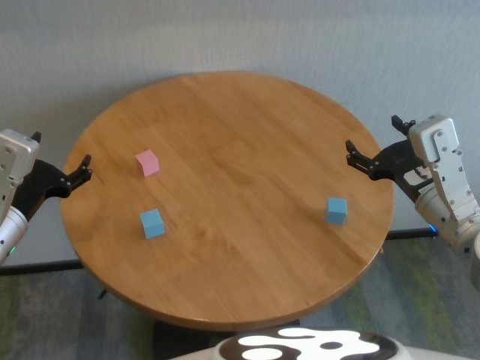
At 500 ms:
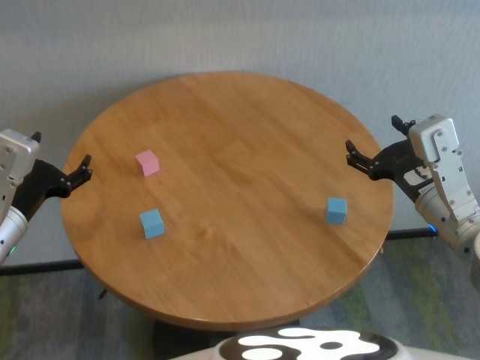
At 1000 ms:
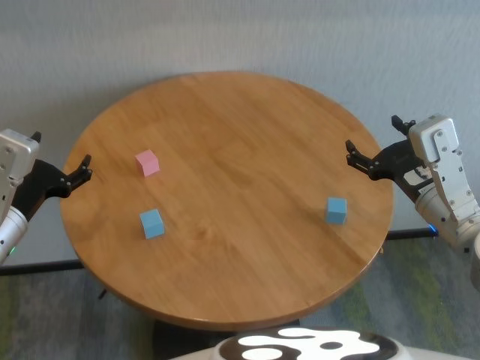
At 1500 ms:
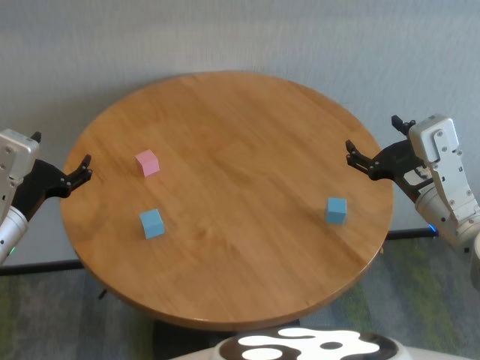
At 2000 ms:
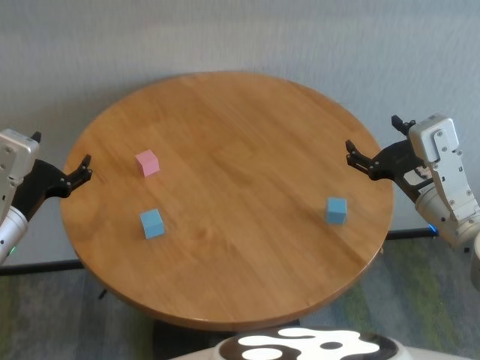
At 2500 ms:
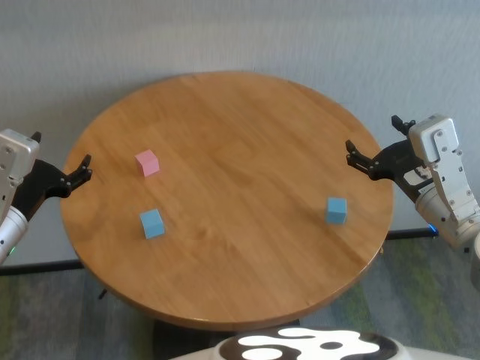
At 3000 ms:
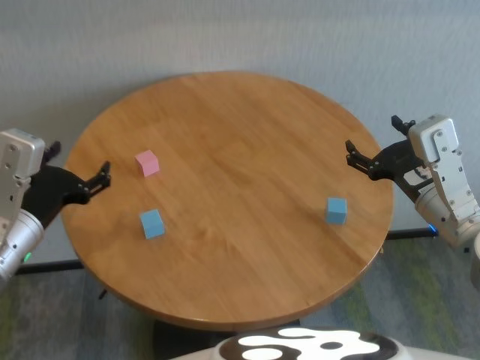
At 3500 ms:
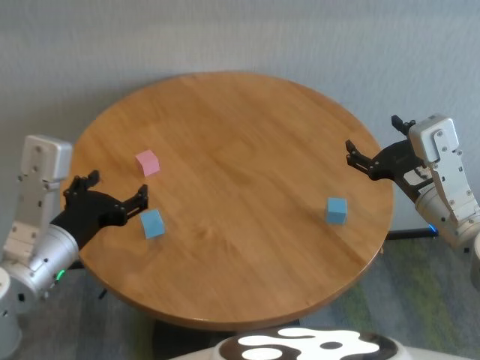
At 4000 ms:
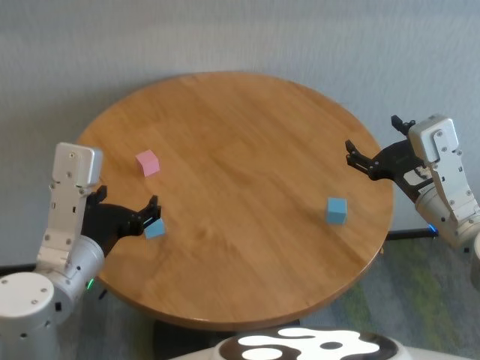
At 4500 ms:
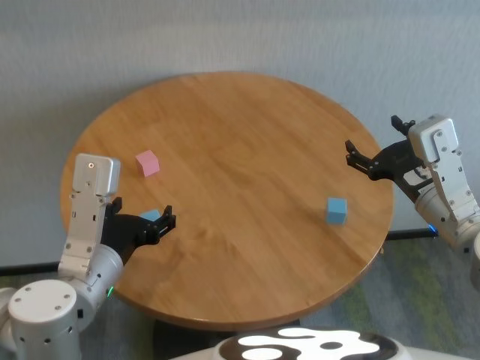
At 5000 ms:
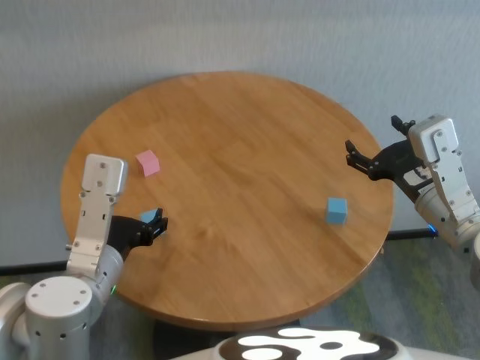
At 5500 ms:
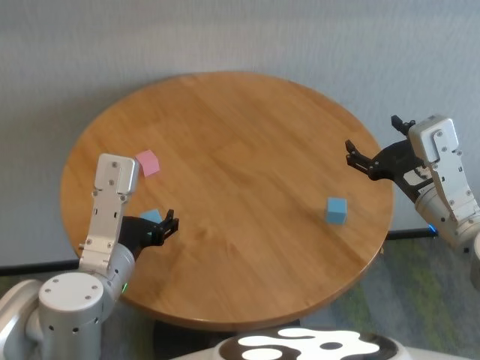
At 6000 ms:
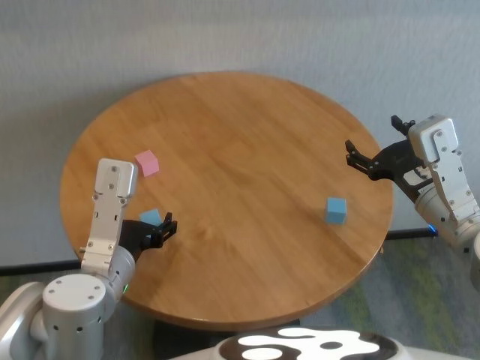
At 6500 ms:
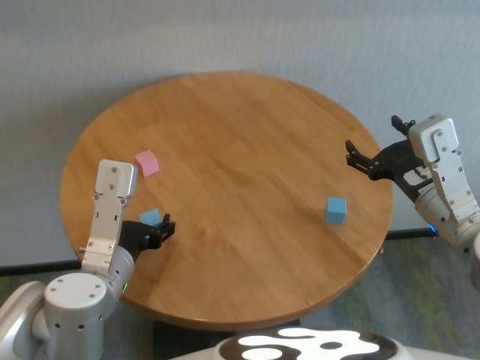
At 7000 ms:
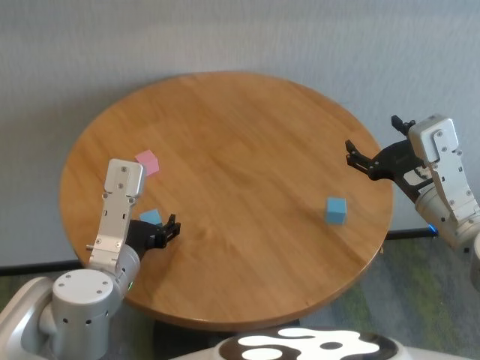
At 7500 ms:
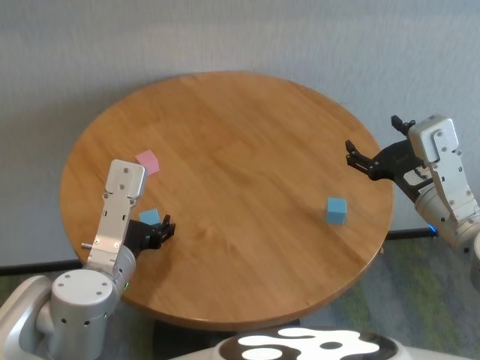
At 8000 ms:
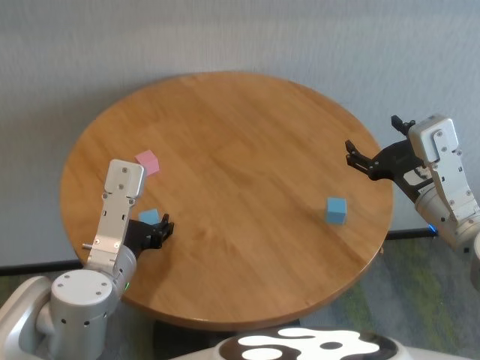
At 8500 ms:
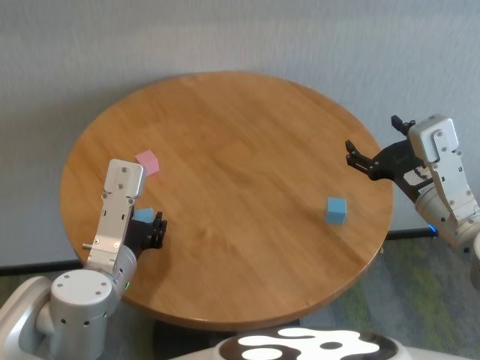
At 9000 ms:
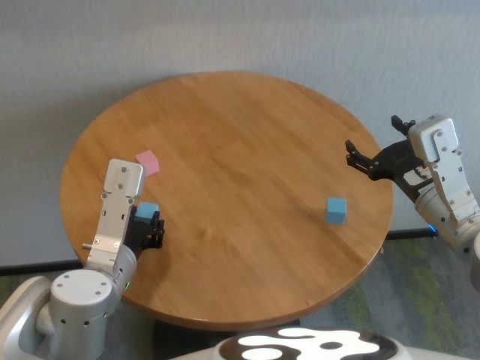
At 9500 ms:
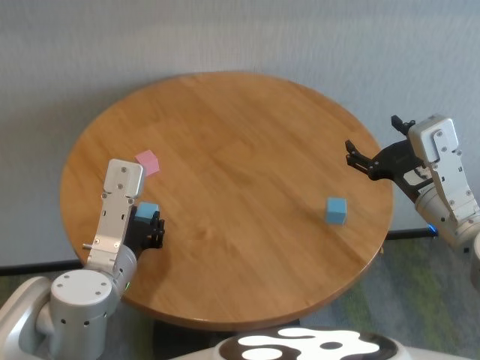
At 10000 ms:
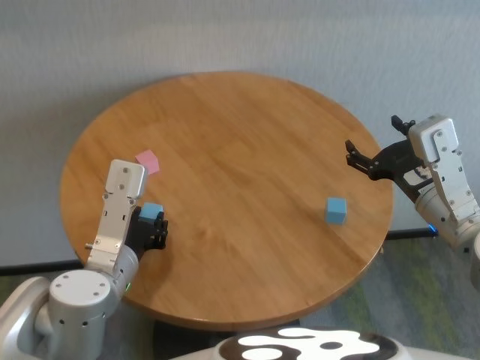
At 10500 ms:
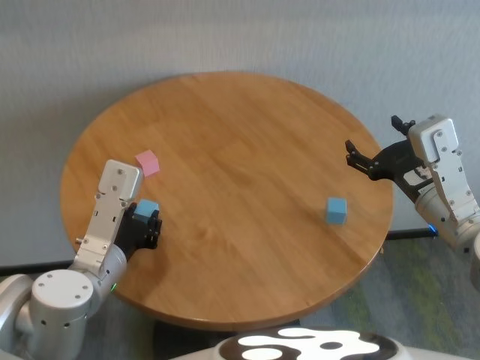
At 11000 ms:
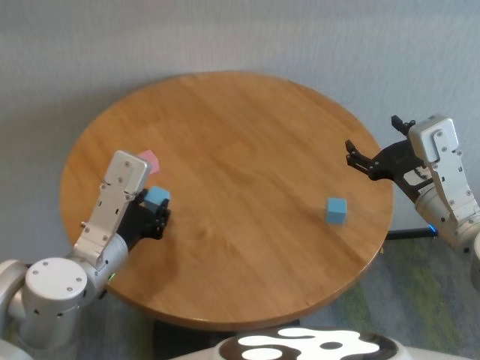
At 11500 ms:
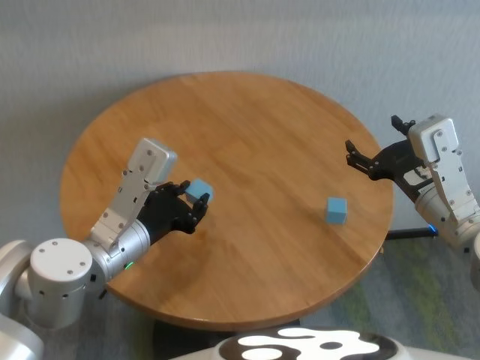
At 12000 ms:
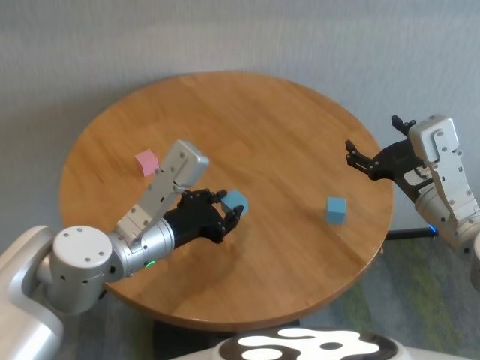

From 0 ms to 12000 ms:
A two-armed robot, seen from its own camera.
Task of the whole recording: stack building blocks on the table.
Step, from 0 ms to 8500 ms: Grasp the blue building block with left gripper.

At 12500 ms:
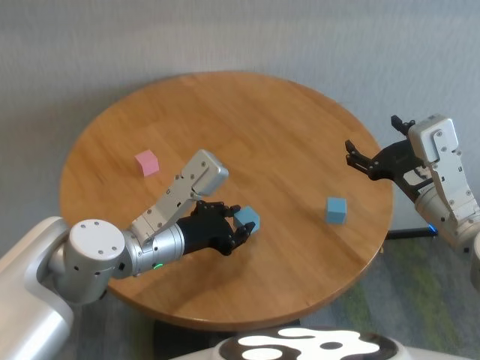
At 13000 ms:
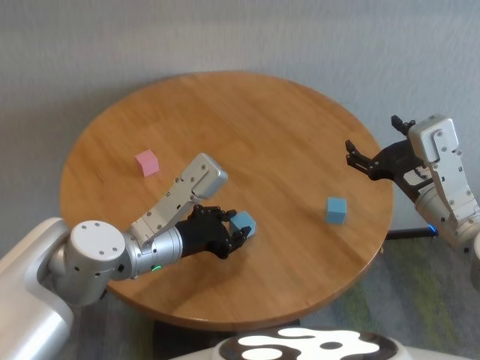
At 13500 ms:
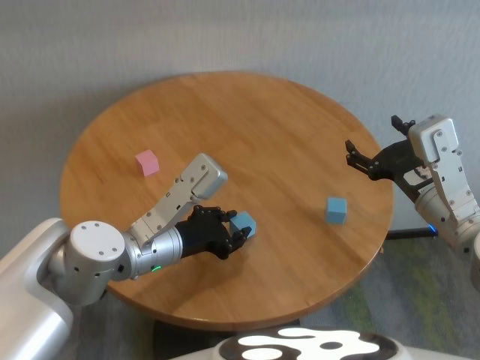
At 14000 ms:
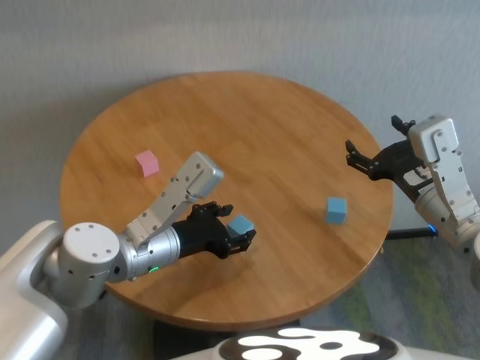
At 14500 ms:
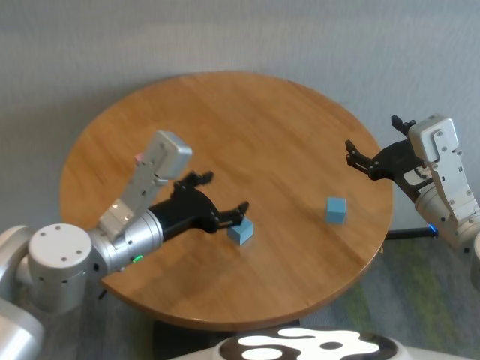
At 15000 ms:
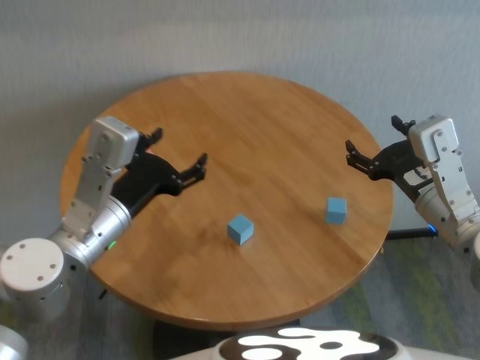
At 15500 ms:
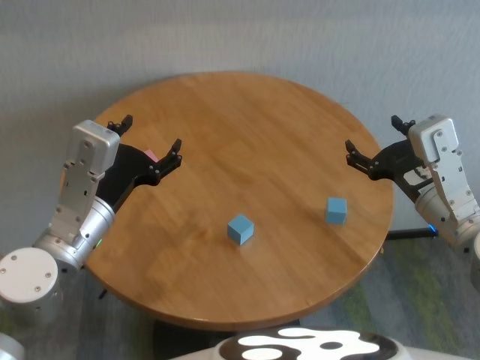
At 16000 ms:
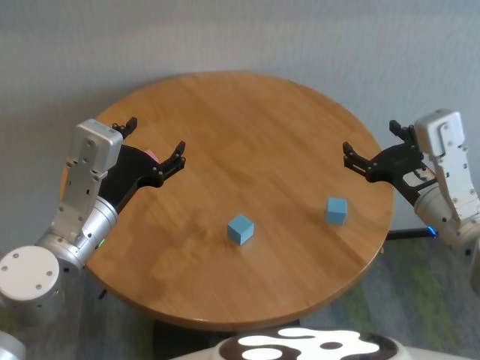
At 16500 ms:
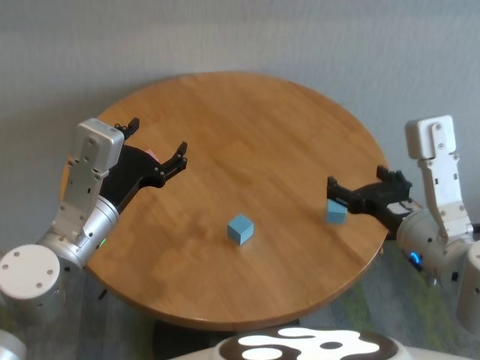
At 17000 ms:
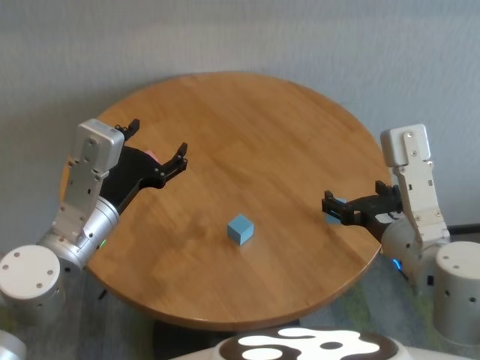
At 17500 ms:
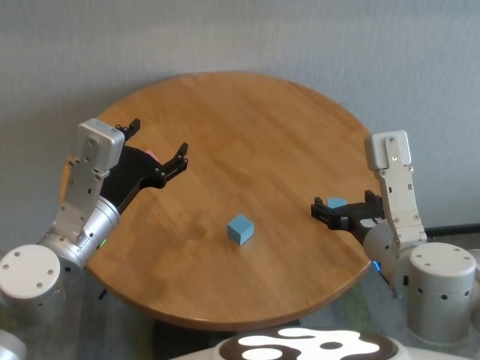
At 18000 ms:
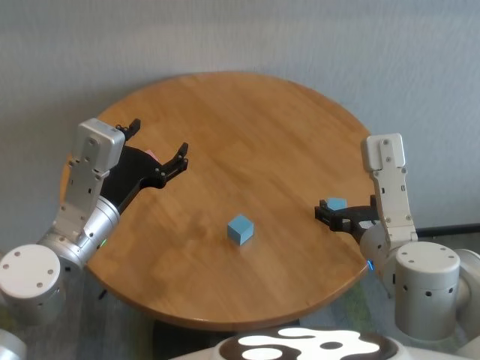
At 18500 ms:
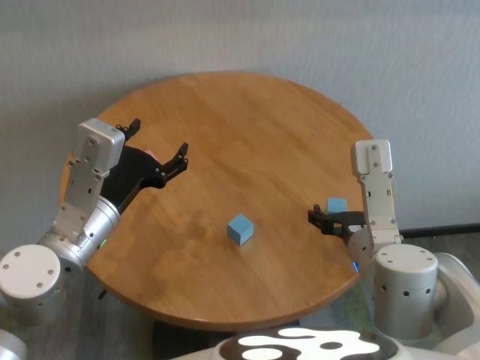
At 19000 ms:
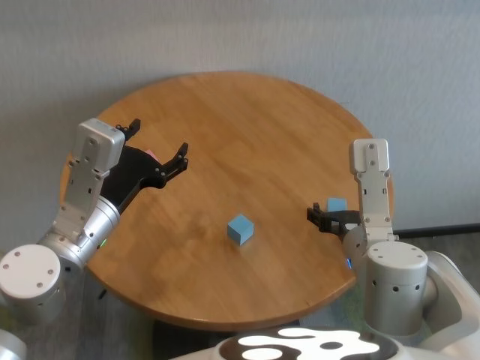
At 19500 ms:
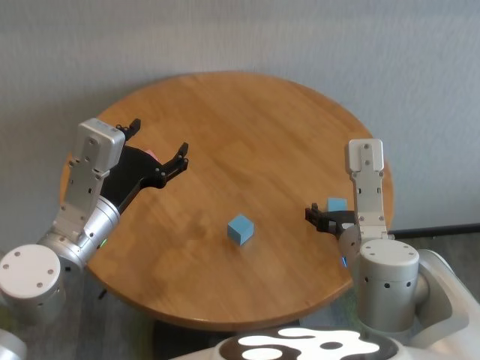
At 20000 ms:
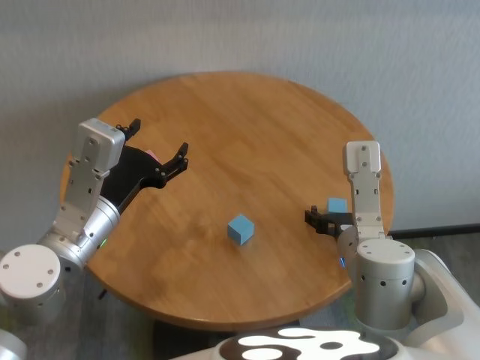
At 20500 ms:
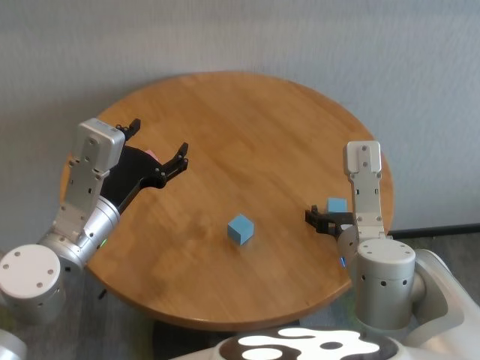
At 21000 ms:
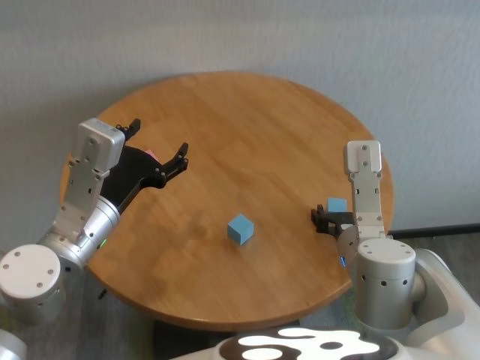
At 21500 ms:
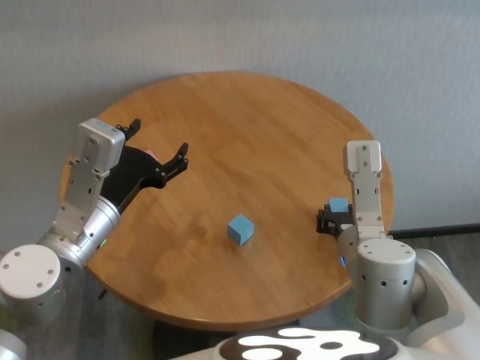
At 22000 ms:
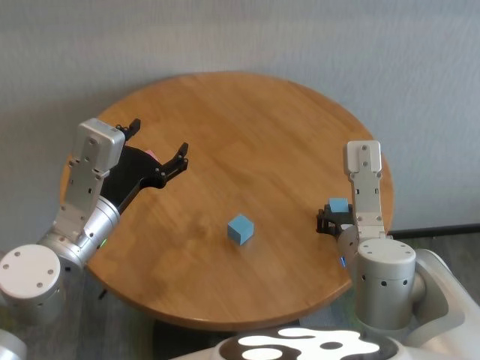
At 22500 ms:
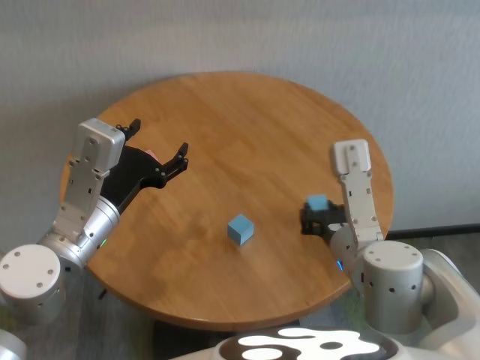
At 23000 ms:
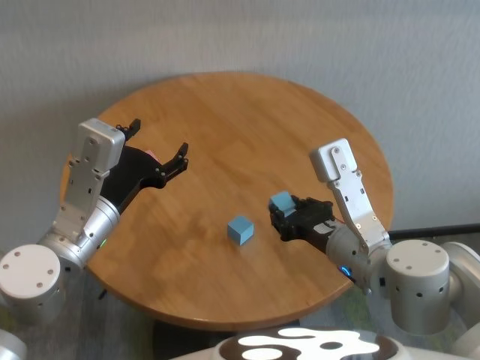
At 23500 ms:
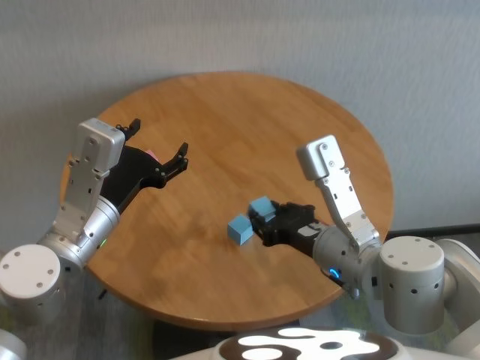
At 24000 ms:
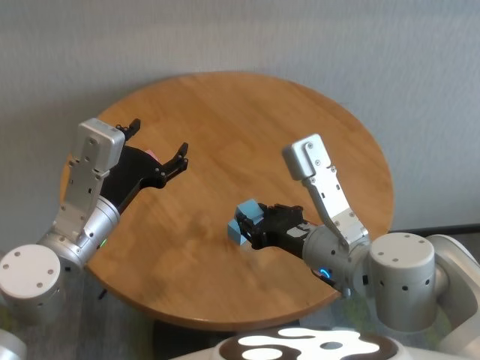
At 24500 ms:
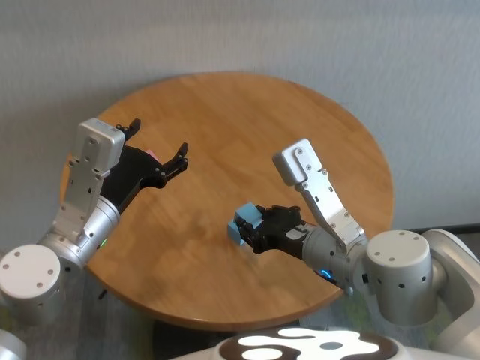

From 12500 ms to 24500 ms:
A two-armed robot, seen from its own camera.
Task of the whole recording: stack building blocks on the table.
Step, from 14000 ms to 21000 ms: Grasp the blue building block with right gripper.

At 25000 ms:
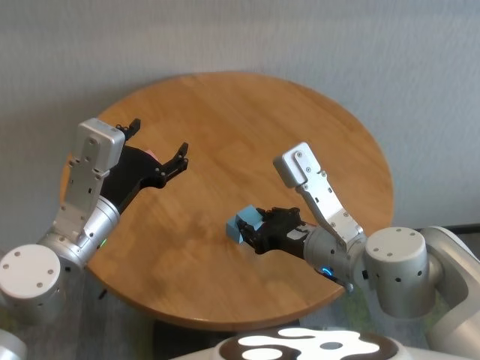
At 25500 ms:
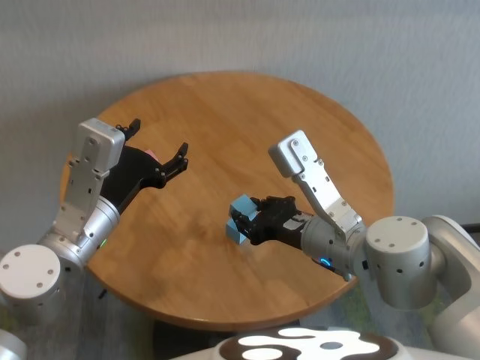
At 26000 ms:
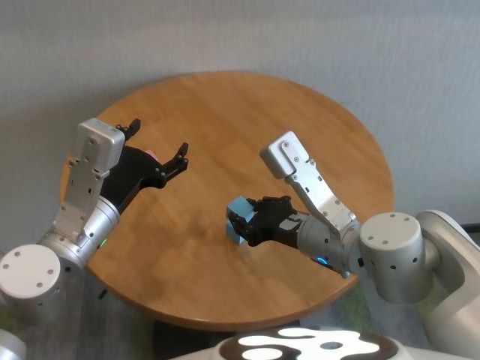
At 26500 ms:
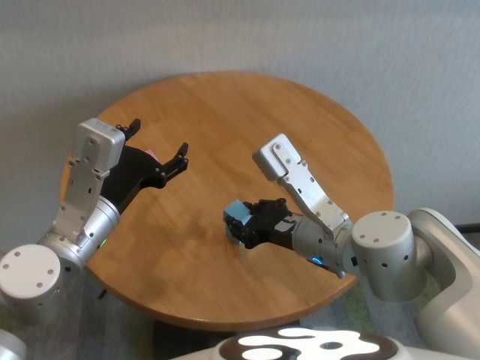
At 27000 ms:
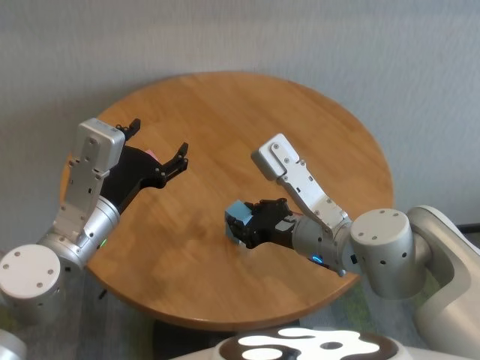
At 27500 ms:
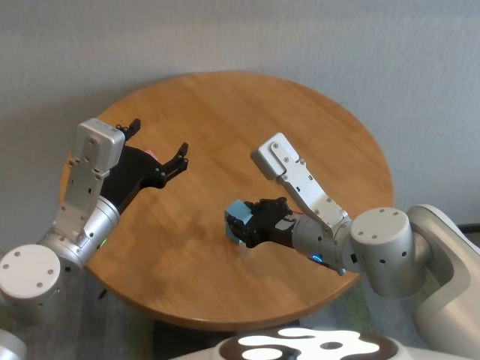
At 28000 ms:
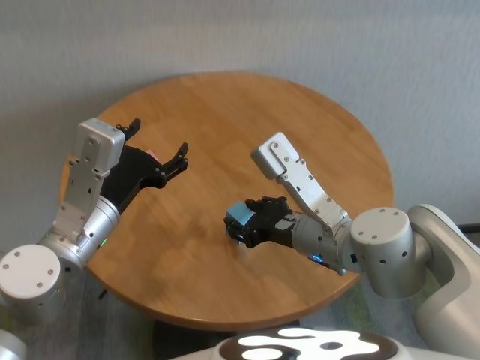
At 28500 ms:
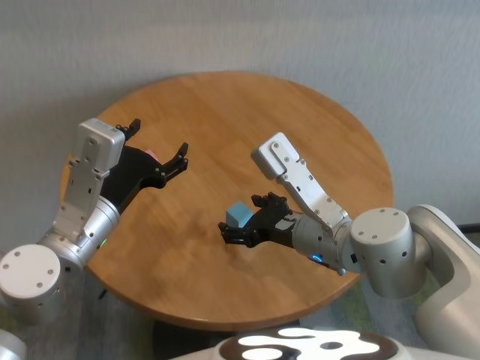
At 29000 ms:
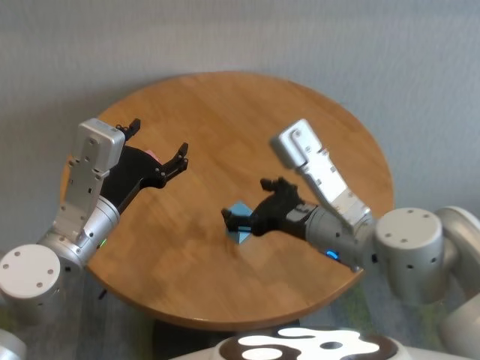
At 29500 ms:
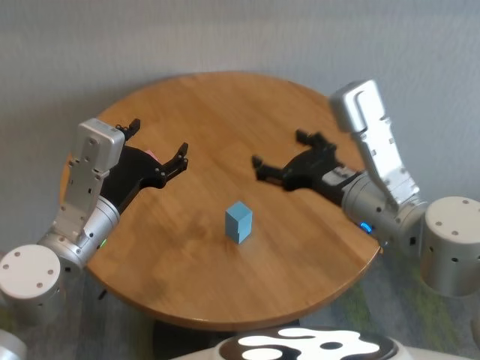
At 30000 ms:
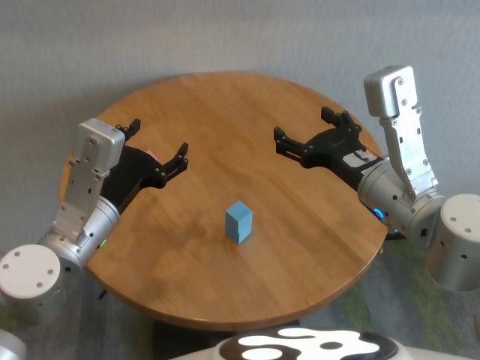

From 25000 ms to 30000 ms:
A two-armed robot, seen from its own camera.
Task of the whole recording: stack building blocks on the table.
Step, from 25000 ms to 28500 ms: Place the blue building block on the blue building blocks with right gripper.
